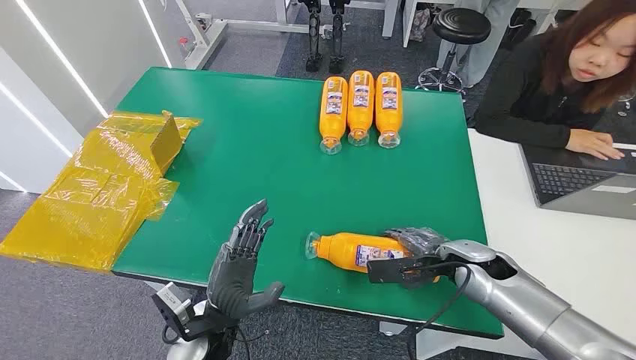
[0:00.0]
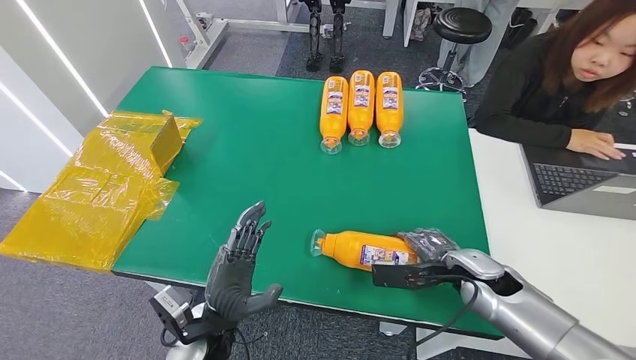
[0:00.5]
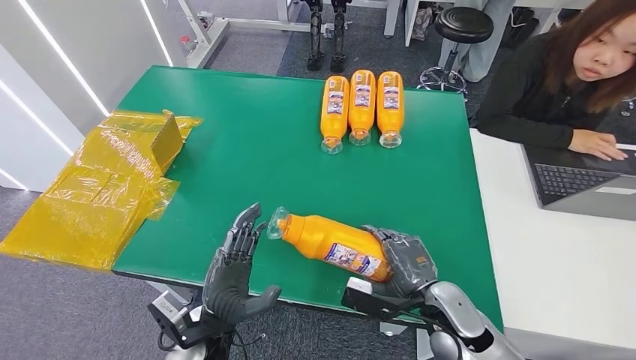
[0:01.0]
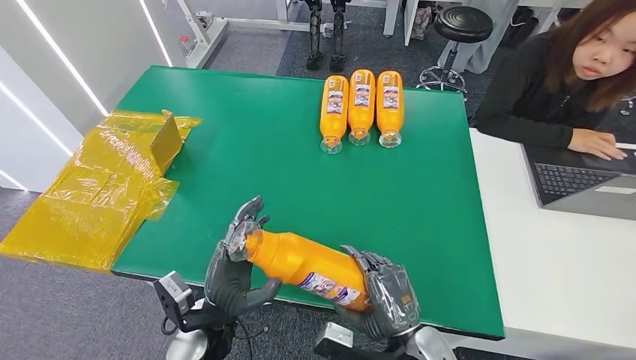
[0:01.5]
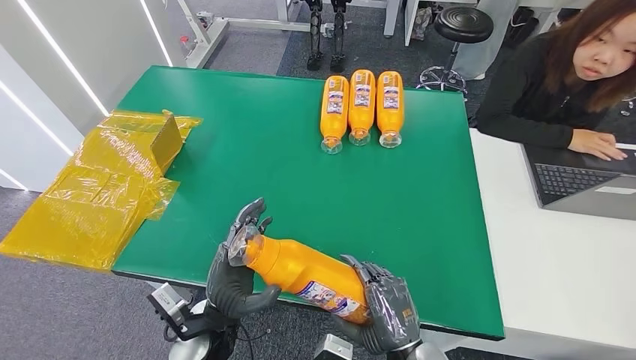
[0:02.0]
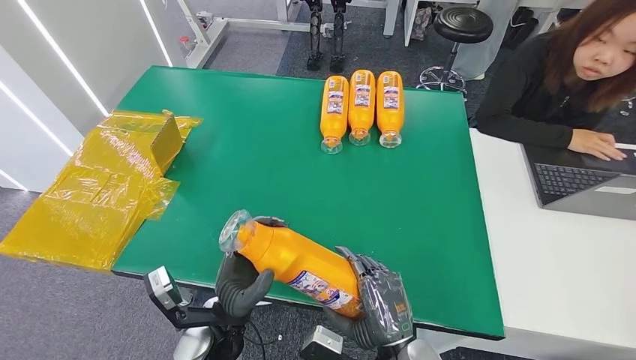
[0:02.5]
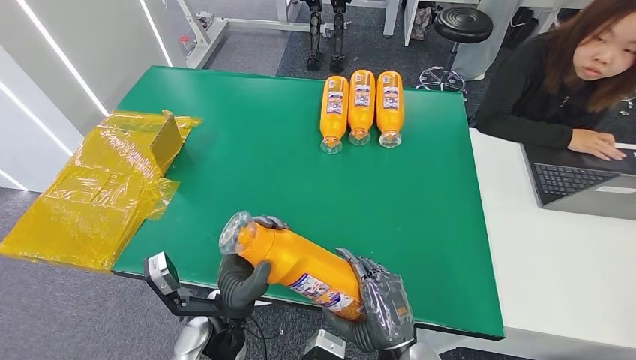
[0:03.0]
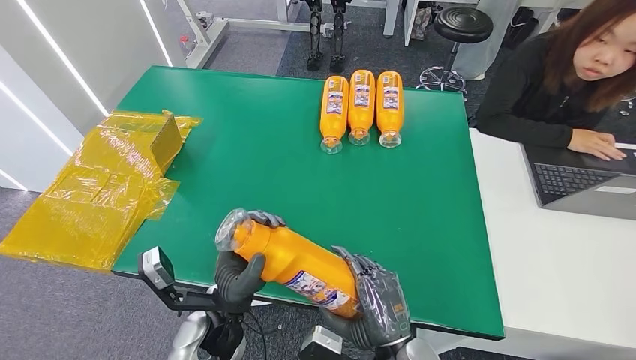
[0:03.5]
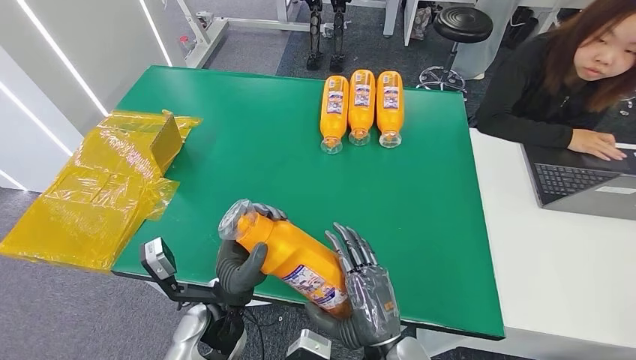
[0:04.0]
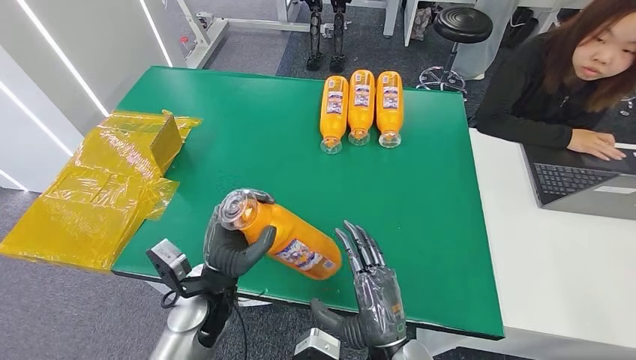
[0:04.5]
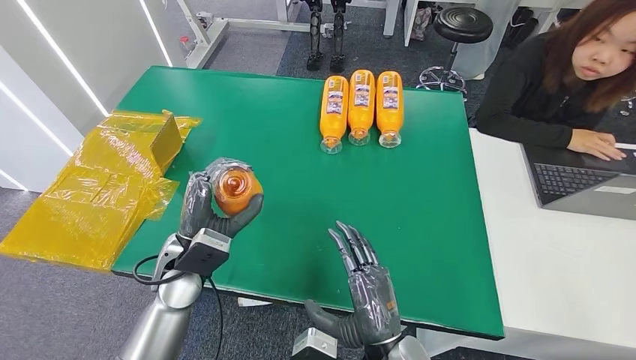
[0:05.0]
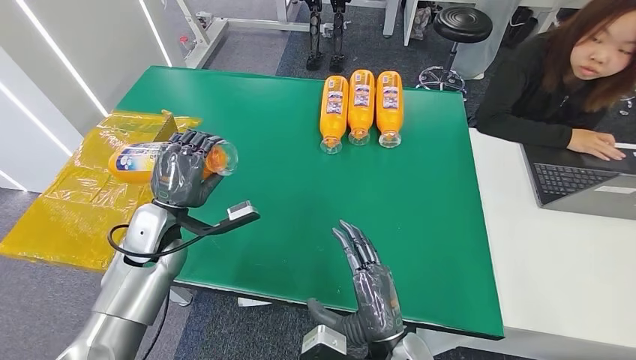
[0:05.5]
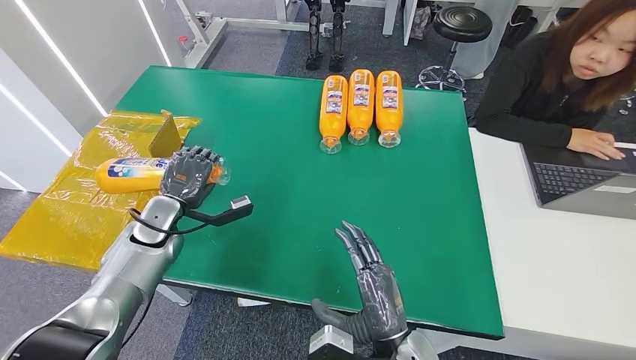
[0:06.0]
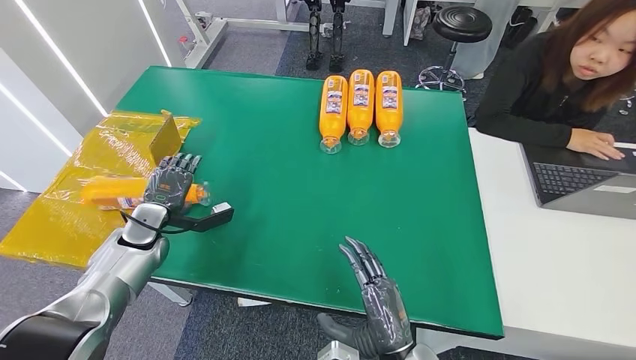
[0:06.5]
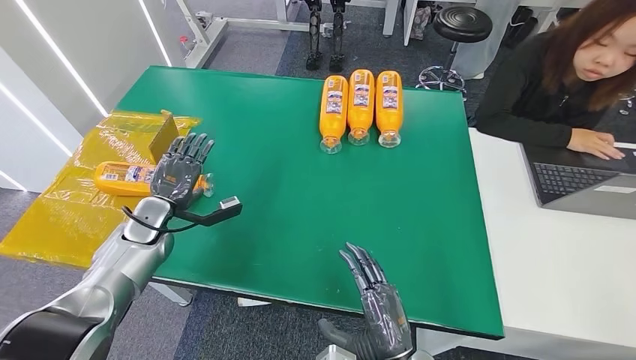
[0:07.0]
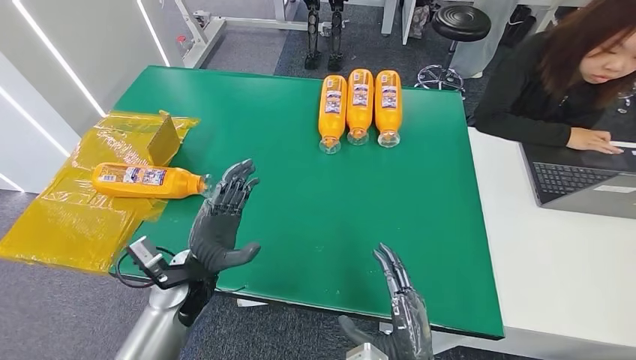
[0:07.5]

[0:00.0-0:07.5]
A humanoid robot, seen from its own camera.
Step, 0:00.0 to 0:02.0: Pick up the bottle from the table.
Step, 0:02.5 to 0:07.5: Turn the bottle to the front side.
0:02.0 to 0:04.0: The right hand moves roughly 5 cm.
0:04.0 to 0:05.5: The left hand is displaced to the left and forward by approximately 20 cm.
0:05.5 to 0:07.5: The left hand moves backward, to the right and downward, about 10 cm, while the right hand shifts by some 5 cm.
